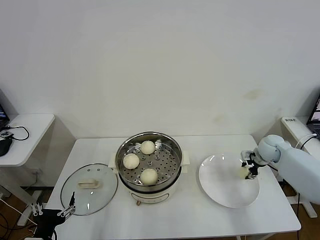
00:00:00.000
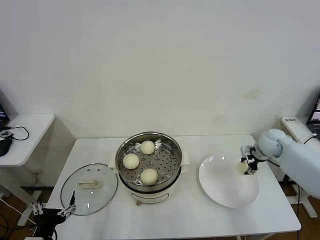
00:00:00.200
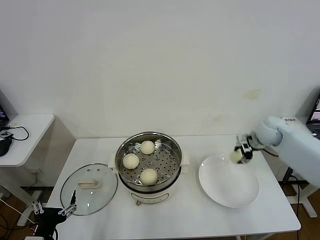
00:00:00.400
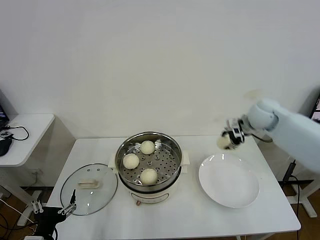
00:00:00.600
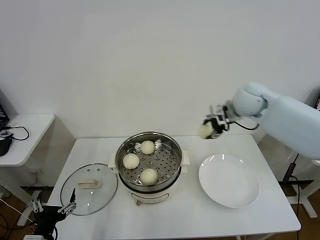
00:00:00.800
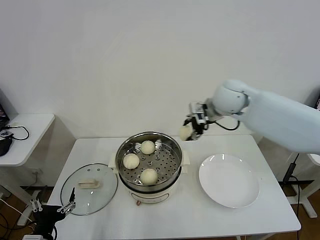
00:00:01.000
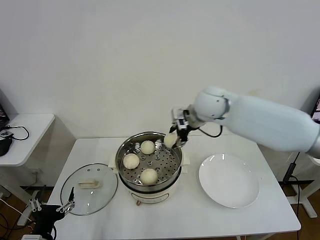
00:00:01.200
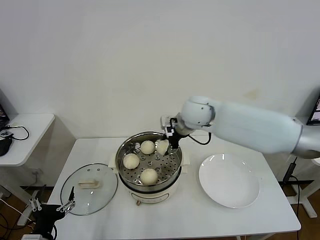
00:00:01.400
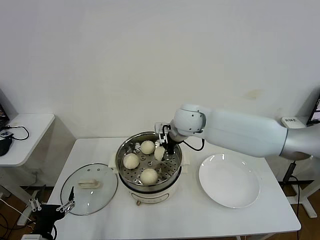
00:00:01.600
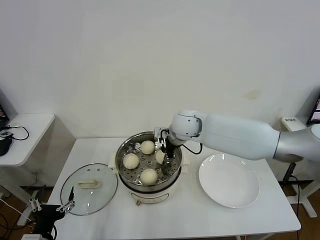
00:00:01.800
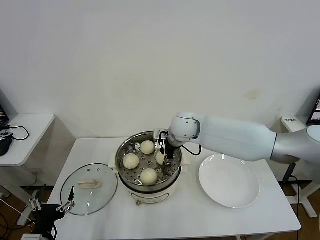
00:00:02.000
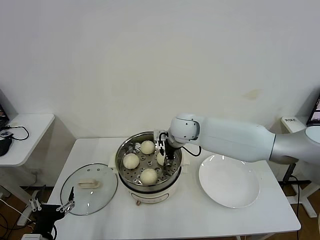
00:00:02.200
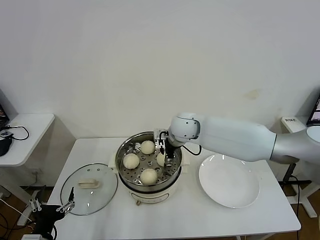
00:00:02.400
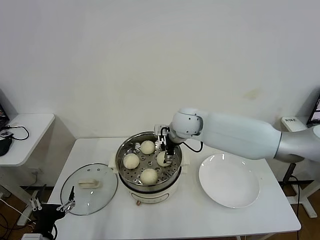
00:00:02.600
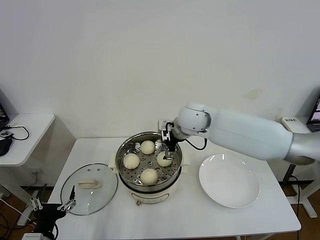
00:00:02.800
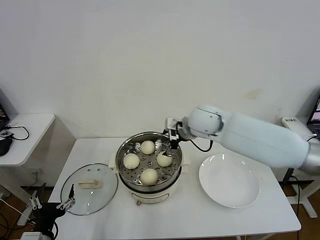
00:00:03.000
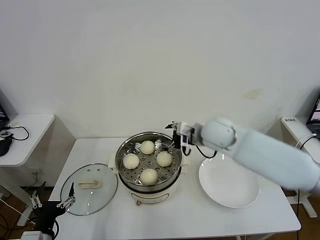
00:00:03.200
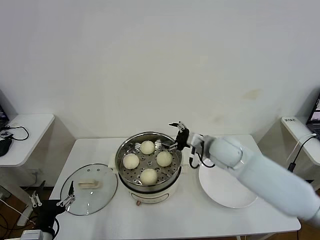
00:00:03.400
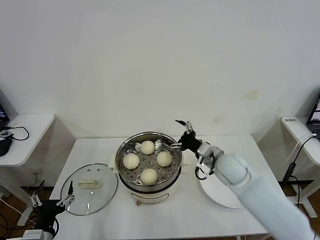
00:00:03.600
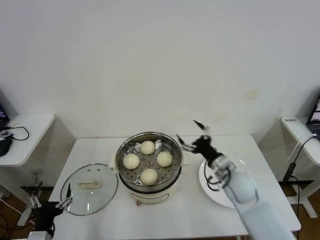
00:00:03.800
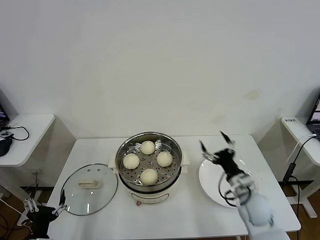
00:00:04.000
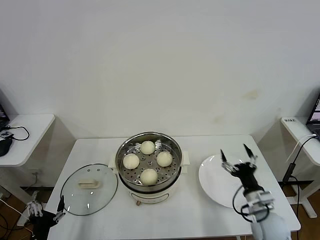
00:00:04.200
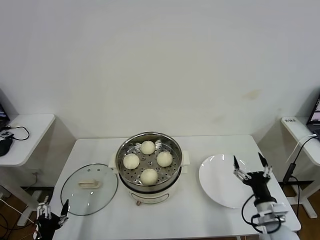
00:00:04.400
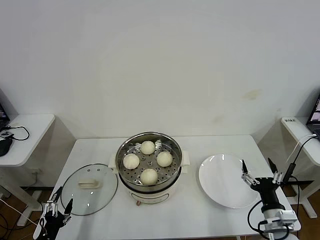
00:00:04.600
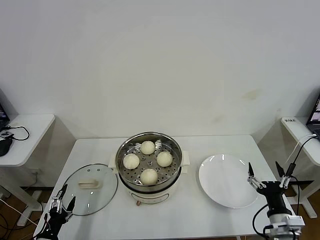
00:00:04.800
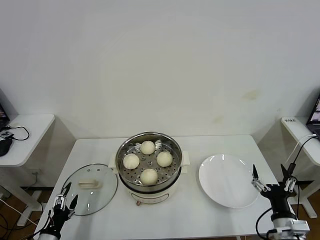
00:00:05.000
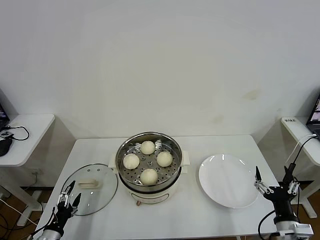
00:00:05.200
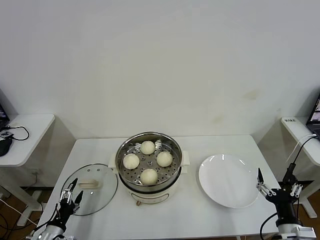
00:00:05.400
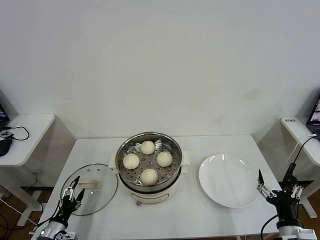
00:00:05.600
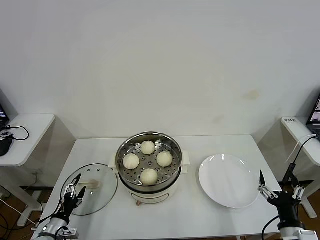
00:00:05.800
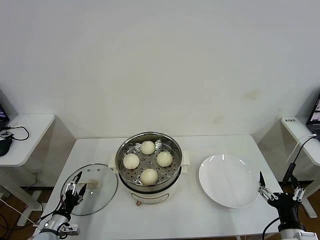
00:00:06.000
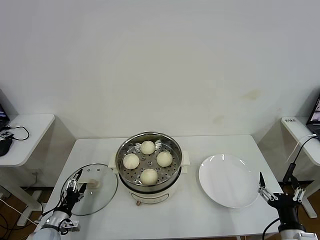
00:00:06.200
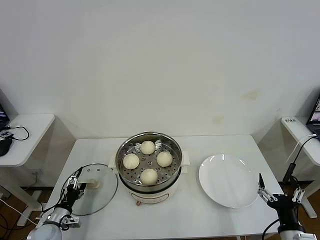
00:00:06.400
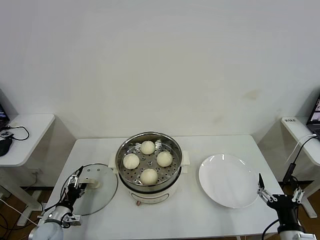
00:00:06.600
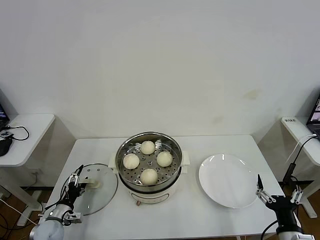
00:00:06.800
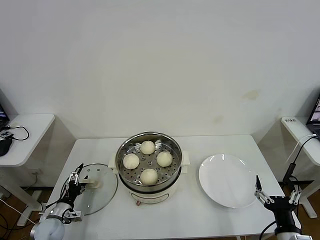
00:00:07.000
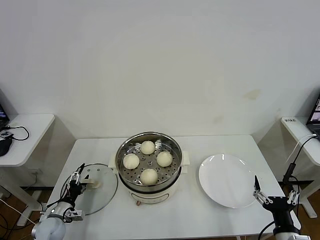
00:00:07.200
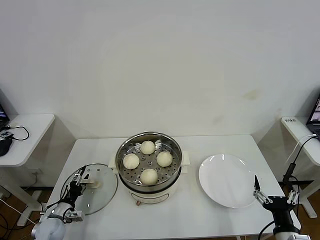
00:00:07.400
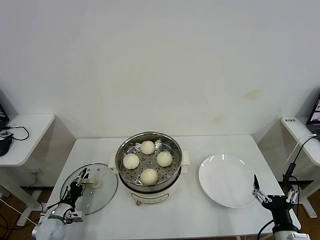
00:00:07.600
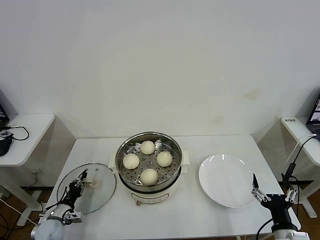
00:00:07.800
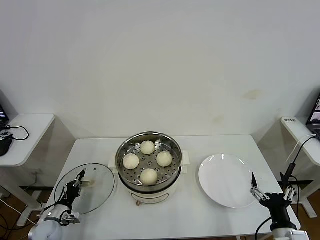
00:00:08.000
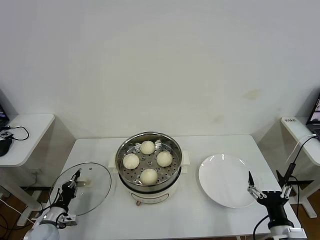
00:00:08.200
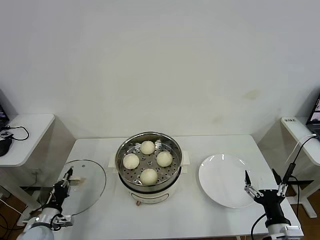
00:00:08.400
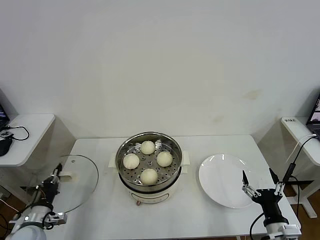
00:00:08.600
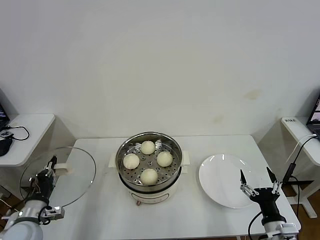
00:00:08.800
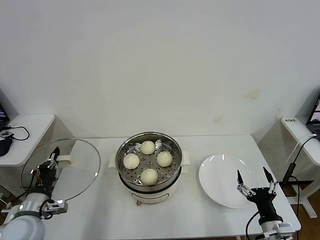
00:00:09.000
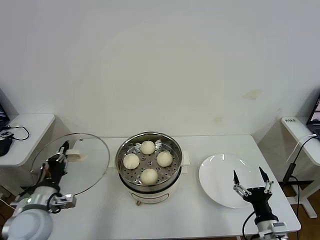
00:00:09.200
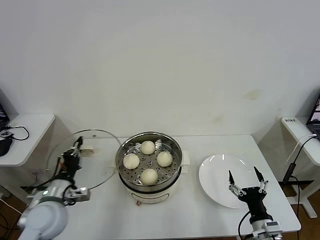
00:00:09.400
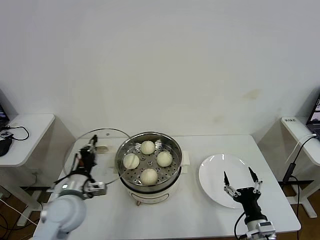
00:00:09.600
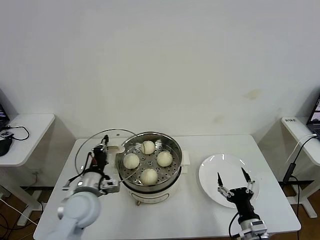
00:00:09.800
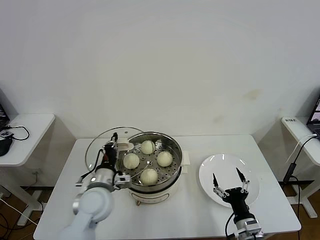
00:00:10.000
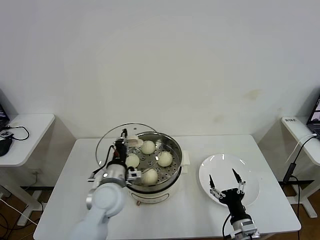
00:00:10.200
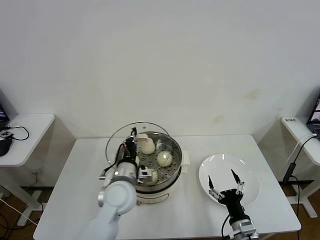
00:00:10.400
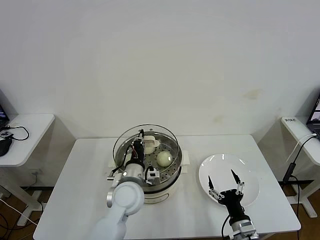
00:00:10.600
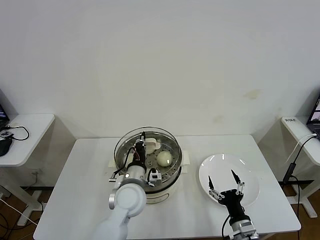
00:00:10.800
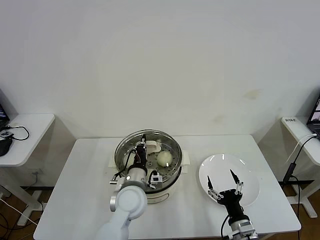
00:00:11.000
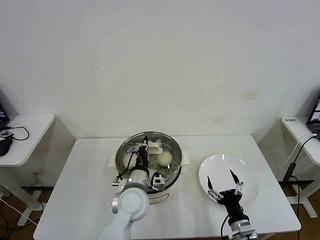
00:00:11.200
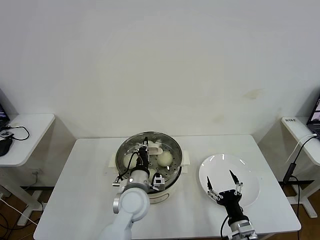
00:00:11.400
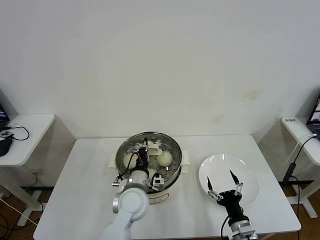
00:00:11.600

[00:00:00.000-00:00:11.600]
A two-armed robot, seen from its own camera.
Task of the whole recording: take steamed baozi put them in steamer then cover it.
Step, 00:00:00.000 to 00:00:02.400: Place the baozi on the steamer with right gripper.
Step, 00:00:02.600 to 00:00:08.000: Grasp the pot lid with left gripper.
00:00:00.000 to 00:00:01.400: The right gripper heads to the left and upward, covering about 35 cm.
00:00:01.400 to 00:00:02.800: The right gripper opens.
00:00:02.800 to 00:00:04.400: The left gripper goes about 10 cm downward and to the left. Meanwhile the right gripper is displaced backward, to the right and downward by about 40 cm.
00:00:04.400 to 00:00:05.800: The right gripper goes roughly 10 cm backward, while the left gripper heads forward and downward, covering some 10 cm.
00:00:05.800 to 00:00:07.200: The left gripper is displaced forward by roughly 5 cm.
00:00:07.200 to 00:00:08.800: The left gripper heads upward and backward, covering some 15 cm, and closes up.
00:00:08.800 to 00:00:10.200: The right gripper goes roughly 5 cm to the left, while the left gripper travels to the right by roughly 25 cm.
00:00:10.200 to 00:00:11.600: The left gripper travels to the right by about 10 cm.

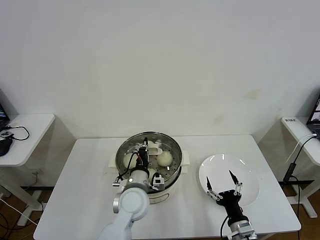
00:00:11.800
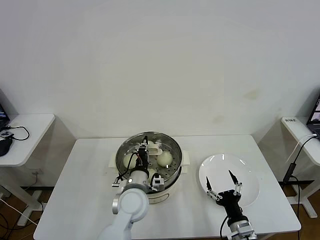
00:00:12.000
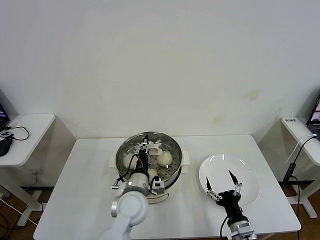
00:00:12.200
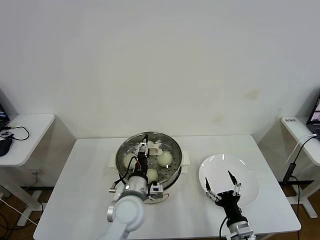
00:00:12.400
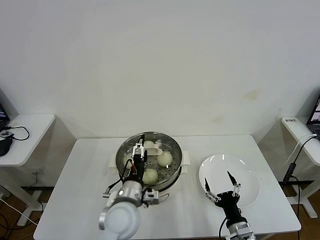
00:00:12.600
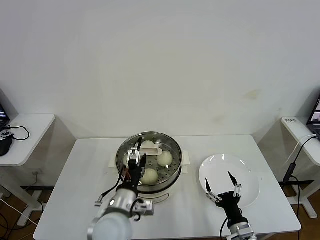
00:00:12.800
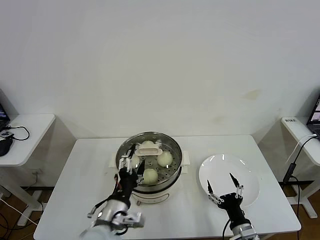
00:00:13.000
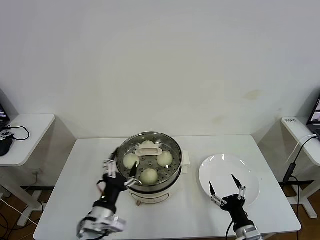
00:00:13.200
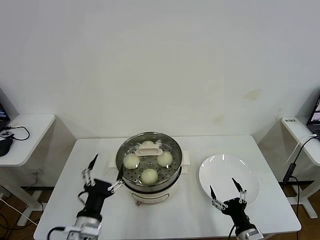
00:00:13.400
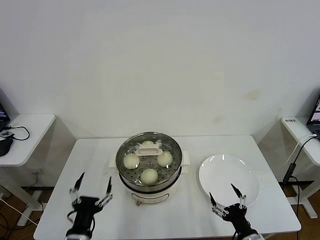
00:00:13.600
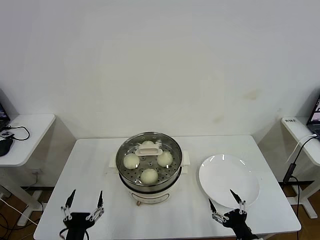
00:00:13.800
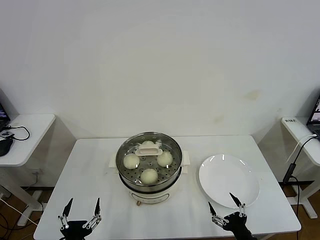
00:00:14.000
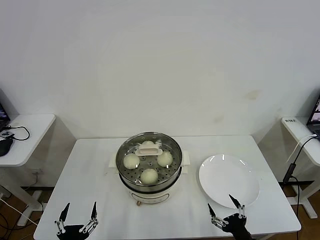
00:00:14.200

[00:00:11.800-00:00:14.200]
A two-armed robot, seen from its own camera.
Task of the whole recording: take steamed baozi put them in steamer then cover it.
00:00:11.800 to 00:00:13.000: The left gripper is displaced backward and to the left by roughly 10 cm, and opens up.
00:00:13.000 to 00:00:14.200: The right gripper is displaced backward by approximately 5 cm. Meanwhile the left gripper goes some 20 cm backward, to the left and downward.
